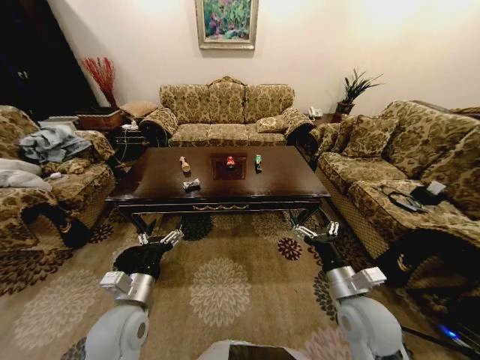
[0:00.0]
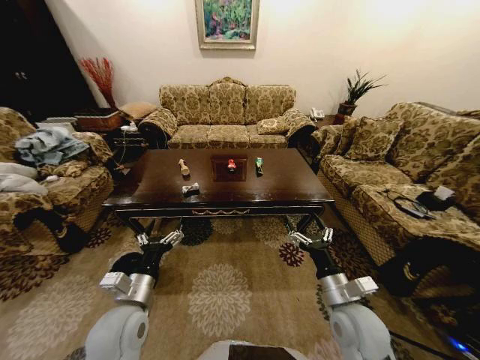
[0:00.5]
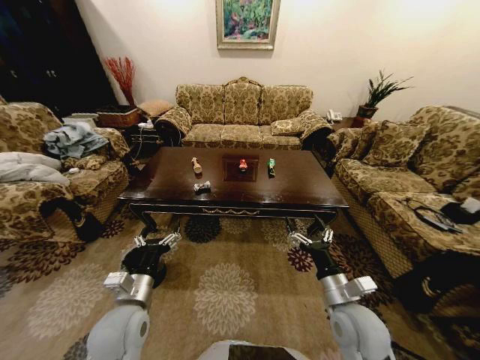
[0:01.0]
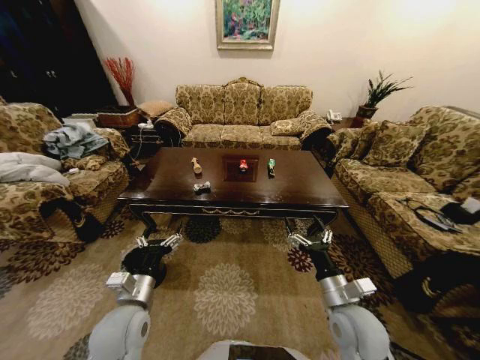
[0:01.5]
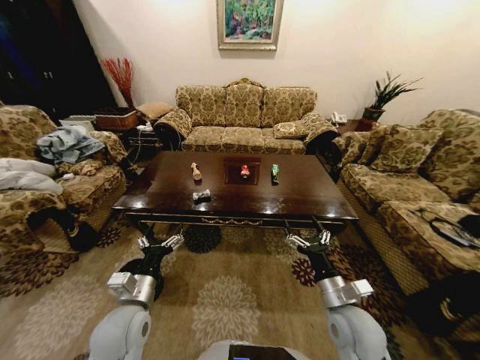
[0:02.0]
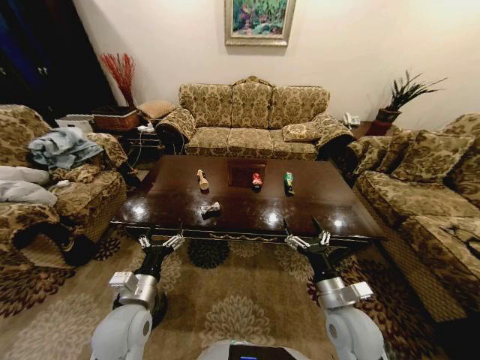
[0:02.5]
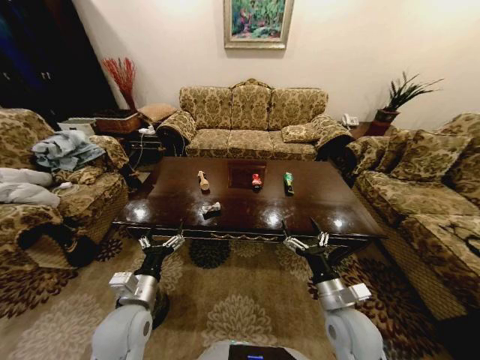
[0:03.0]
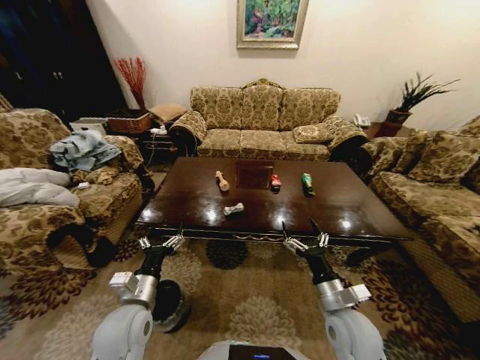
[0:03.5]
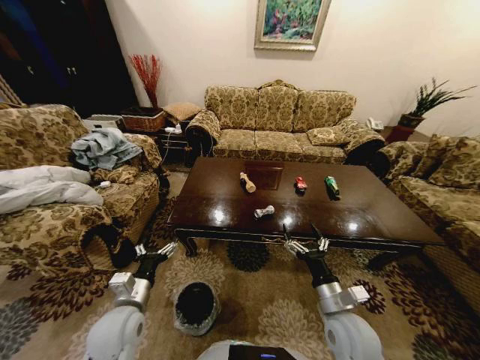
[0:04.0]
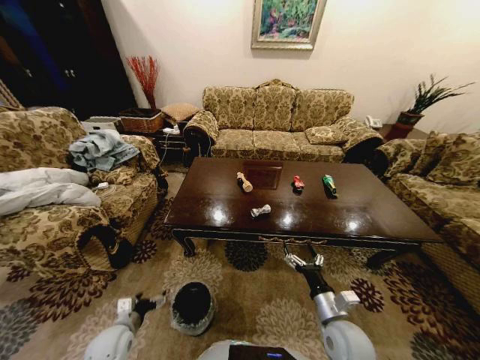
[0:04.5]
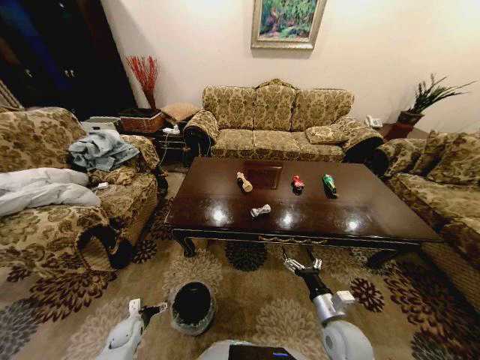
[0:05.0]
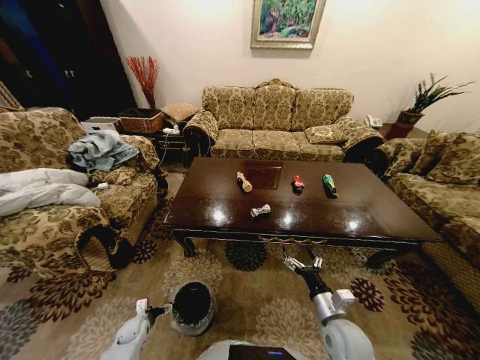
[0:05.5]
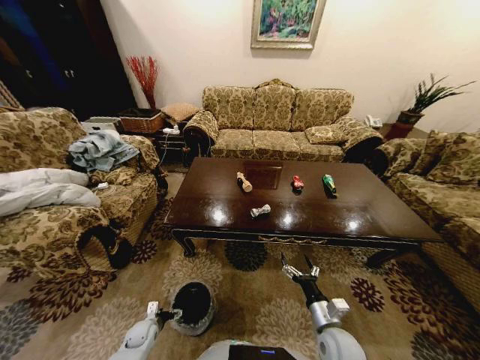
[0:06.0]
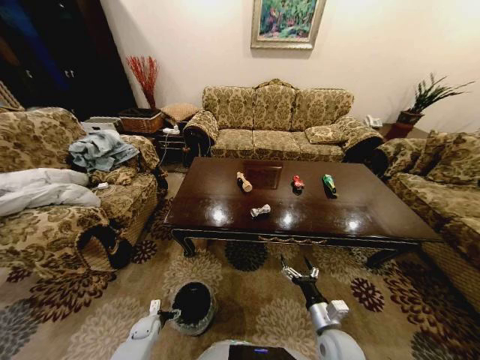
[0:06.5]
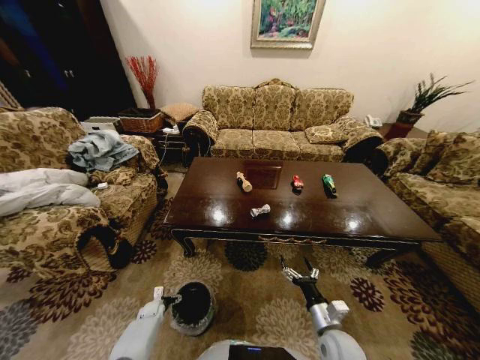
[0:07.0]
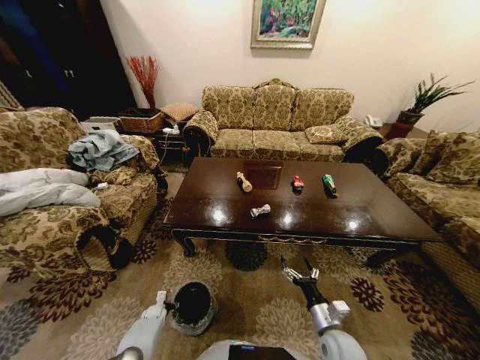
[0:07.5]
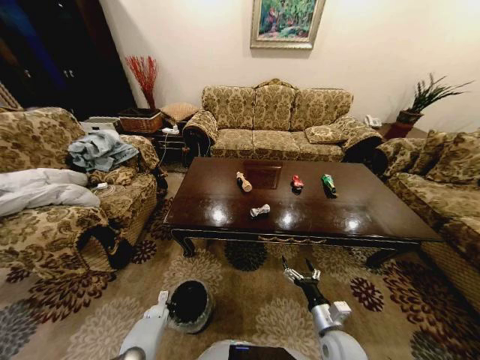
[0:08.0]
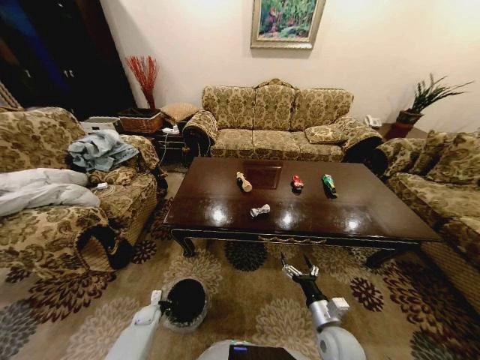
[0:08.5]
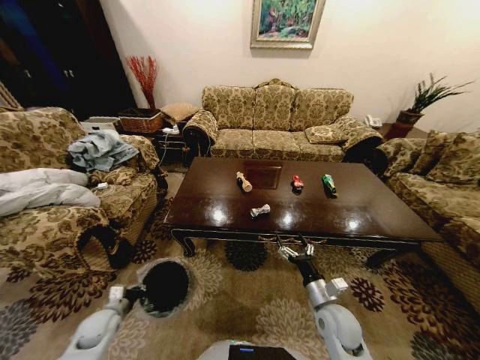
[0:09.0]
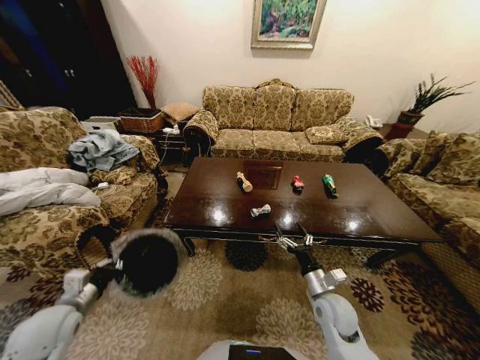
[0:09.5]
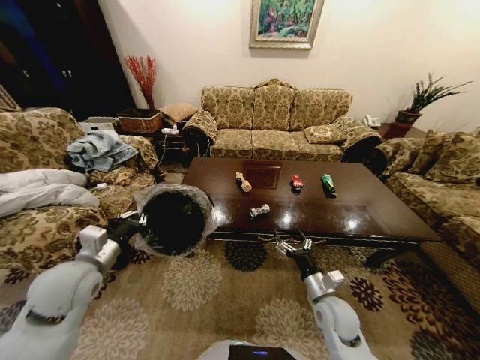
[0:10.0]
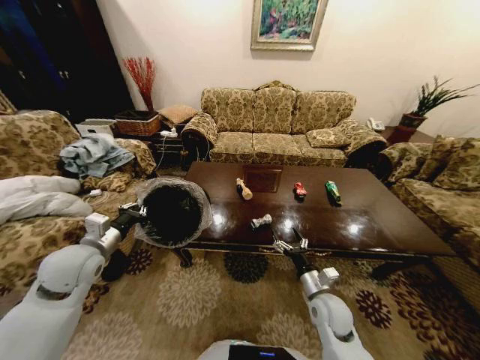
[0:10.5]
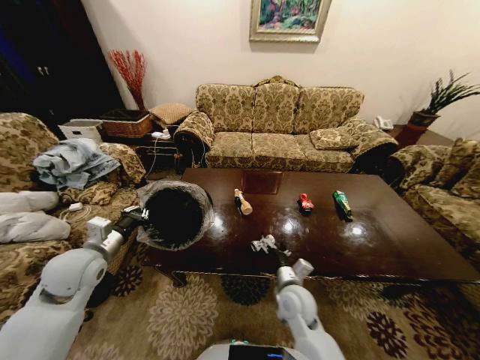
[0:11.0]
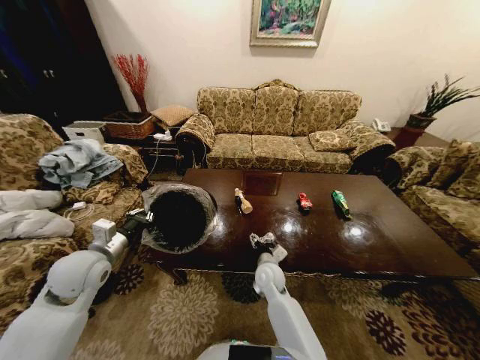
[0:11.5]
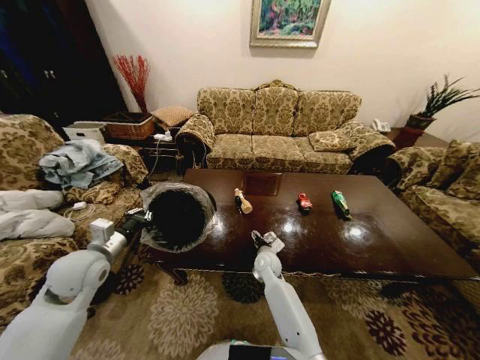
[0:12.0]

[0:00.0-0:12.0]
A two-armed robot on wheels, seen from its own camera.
Task of the whole recording: Move to the front of the table and place the trash on the table into the trash bin.
0:04.0 to 0:06.0: The left gripper travels downward by roughly 30 cm. Meanwhile the right gripper is displaced downward by approximately 10 cm.
0:06.0 to 0:08.0: The left gripper moves downward and forward, roughly 10 cm, and closes.
0:08.0 to 0:10.0: The left gripper moves upward, approximately 50 cm. Meanwhile the right gripper travels forward and upward by approximately 10 cm.
0:10.0 to 0:12.0: The right gripper shifts some 20 cm forward and to the left.

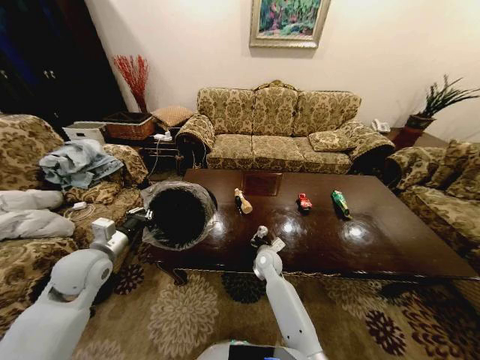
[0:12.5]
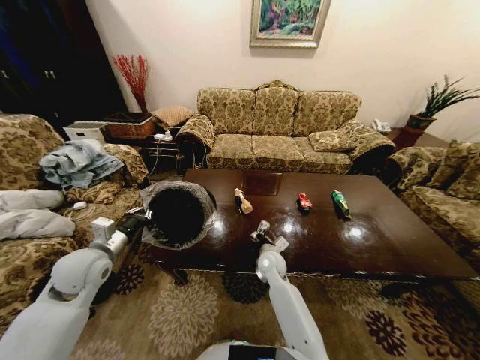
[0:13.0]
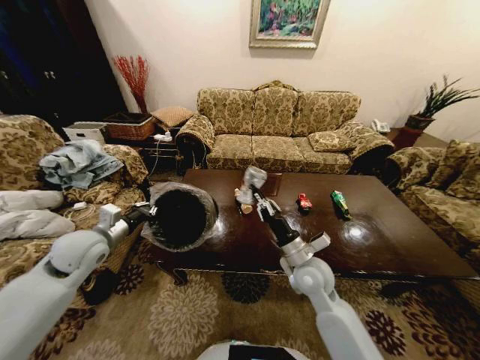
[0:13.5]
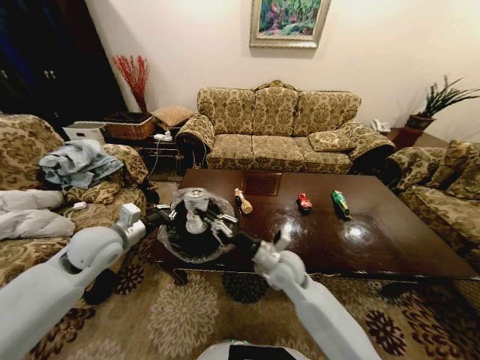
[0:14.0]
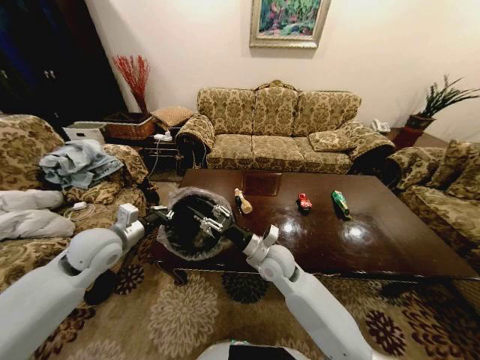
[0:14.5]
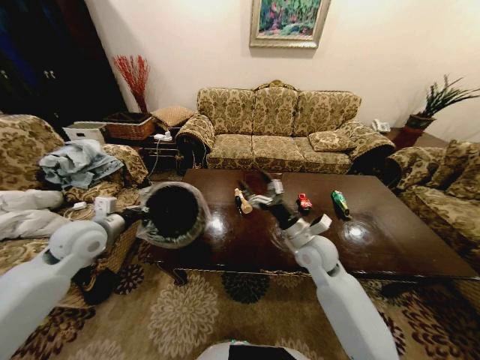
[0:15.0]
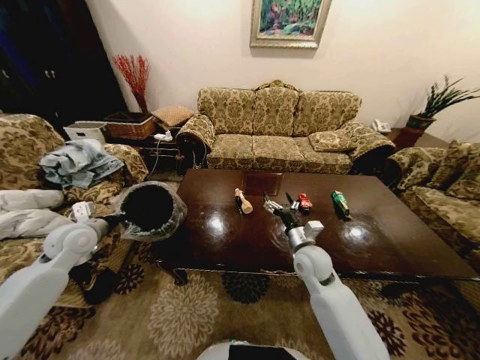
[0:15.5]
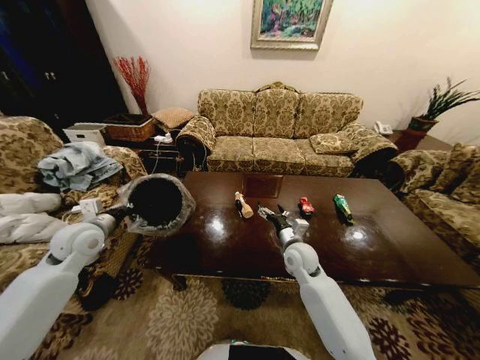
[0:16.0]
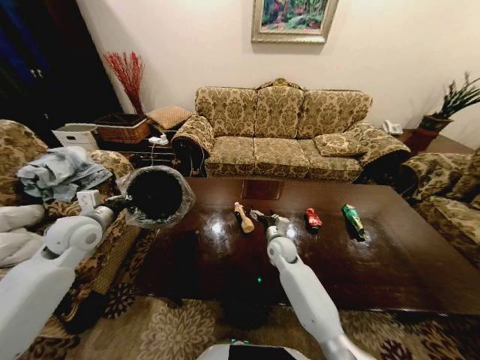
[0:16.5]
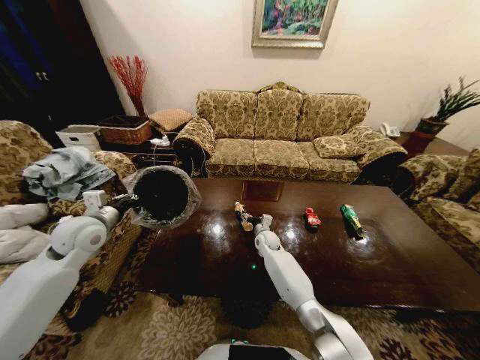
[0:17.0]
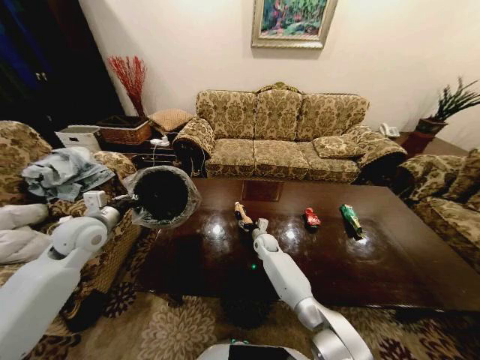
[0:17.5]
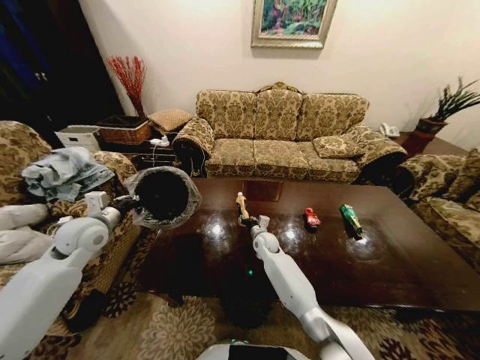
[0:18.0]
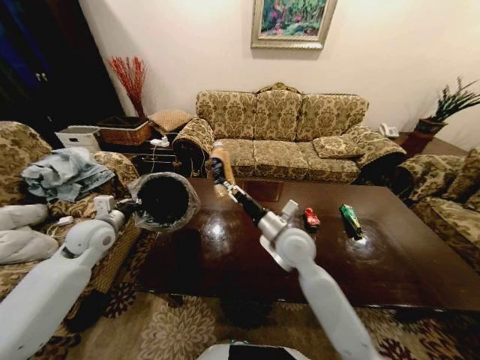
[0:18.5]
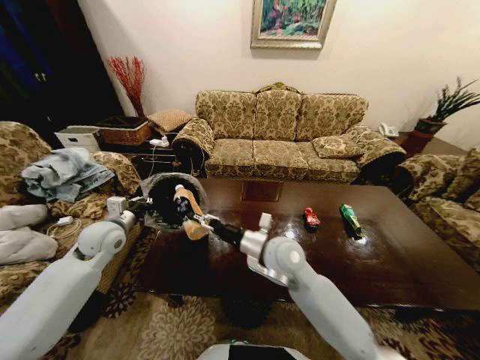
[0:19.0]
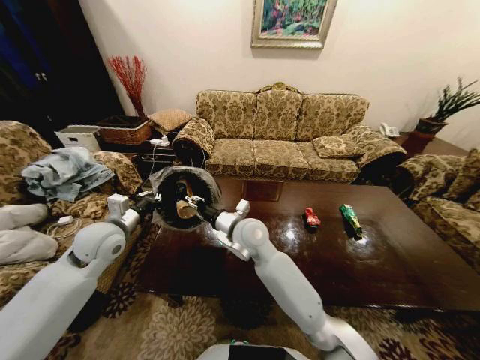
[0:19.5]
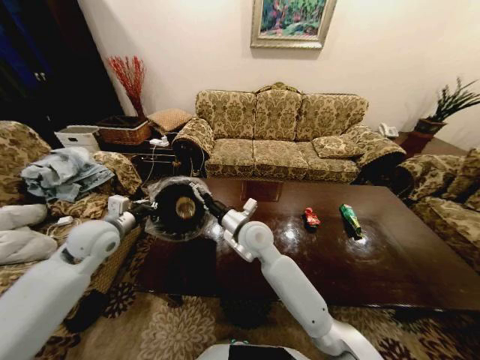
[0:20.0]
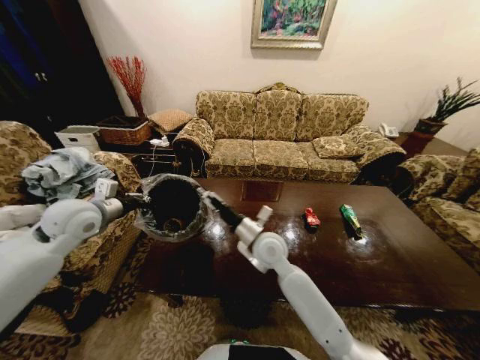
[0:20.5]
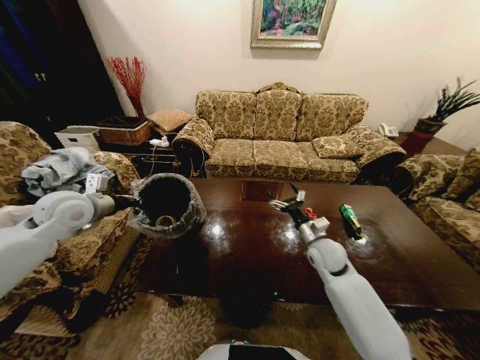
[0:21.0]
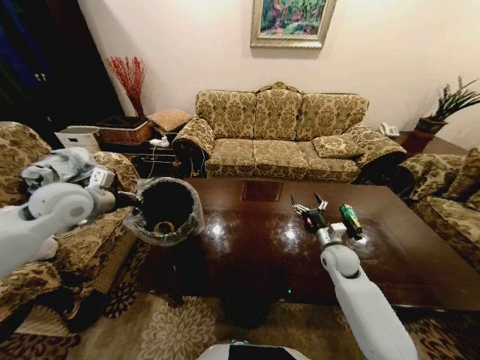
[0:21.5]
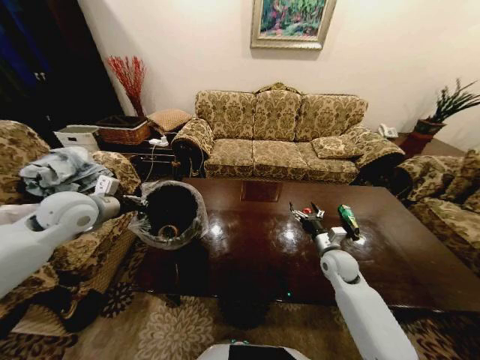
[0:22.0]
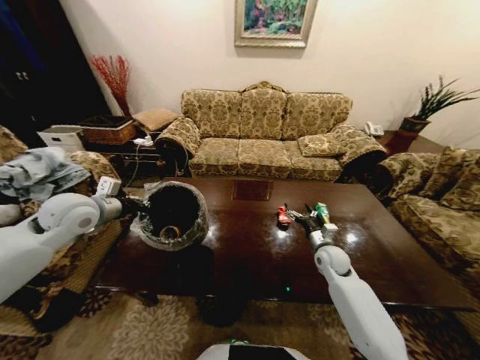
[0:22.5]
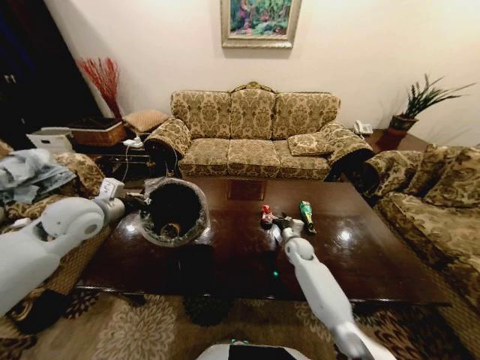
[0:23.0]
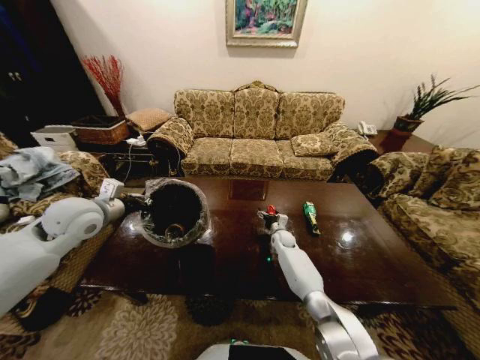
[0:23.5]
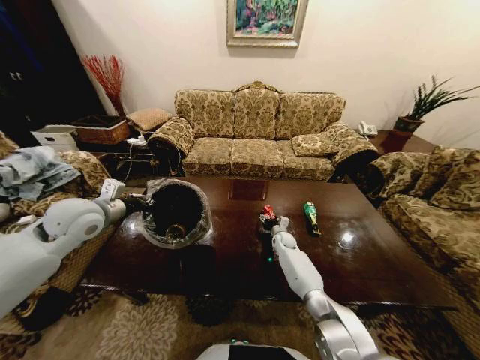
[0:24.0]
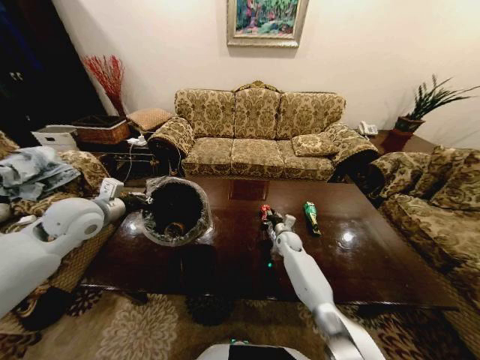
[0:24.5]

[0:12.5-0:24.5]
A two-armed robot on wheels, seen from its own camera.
Task of the whole recording: Move to the front of the table and place the trash on the table into the trash bin.
0:12.5 to 0:14.5: The right gripper is displaced upward and backward by roughly 15 cm, and closes, then reopens. The left gripper moves about 5 cm.
0:14.5 to 0:16.5: The left gripper heads to the left, covering approximately 5 cm; the right gripper goes about 15 cm downward, forward and to the right, and opens its fingers.
0:16.5 to 0:18.5: The right gripper shifts approximately 20 cm upward and backward, and closes.
0:18.5 to 0:20.5: The left gripper travels upward by some 10 cm. The right gripper shifts approximately 5 cm to the left, and opens its fingers.
0:20.5 to 0:22.5: The right gripper is displaced to the right and downward by some 25 cm.
0:22.5 to 0:24.5: The right gripper goes approximately 20 cm forward, to the left and downward, and closes its fingers.

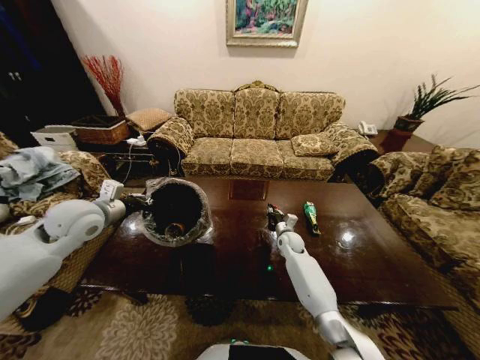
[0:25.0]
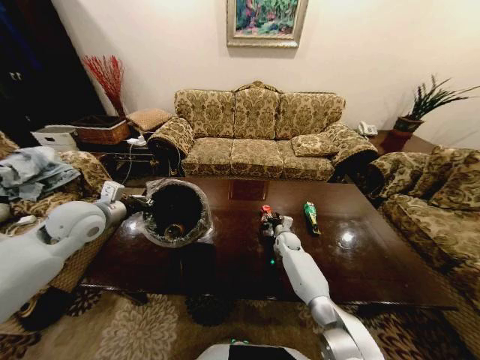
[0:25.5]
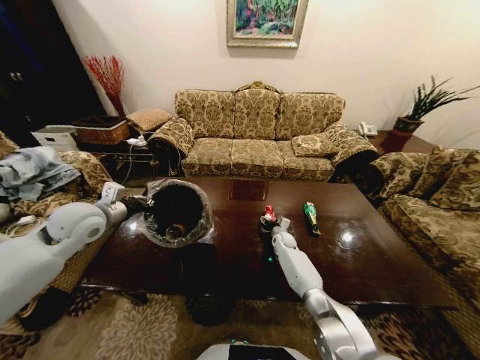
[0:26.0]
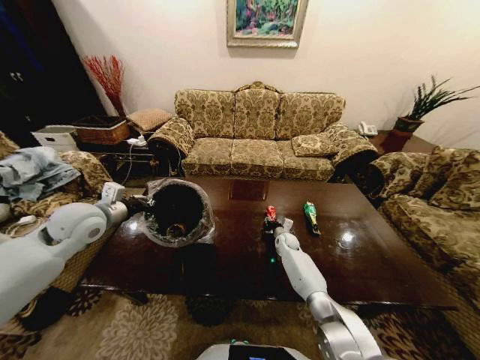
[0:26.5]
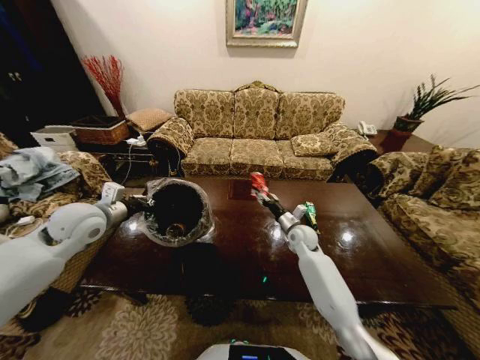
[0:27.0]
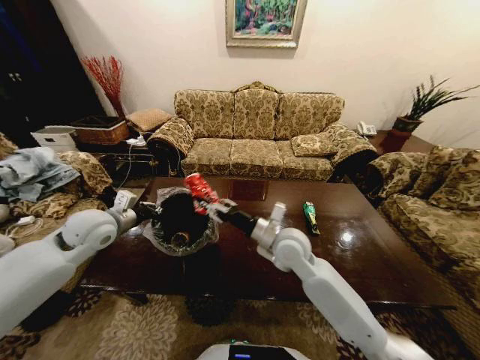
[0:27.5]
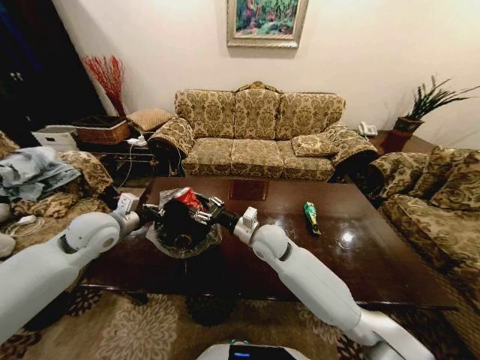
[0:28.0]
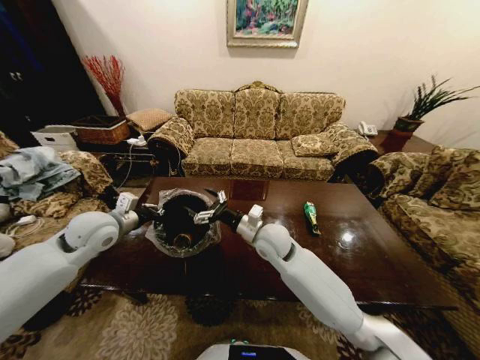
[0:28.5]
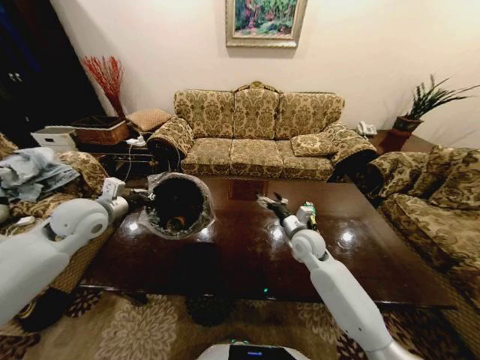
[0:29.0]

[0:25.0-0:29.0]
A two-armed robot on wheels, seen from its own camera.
Task of the whole recording: Move to the front of the table and place the trash on the table into the trash bin.
0:25.0 to 0:27.0: The right gripper is displaced upward by some 10 cm, and opens, then closes once more.
0:27.0 to 0:29.0: The right gripper moves approximately 15 cm to the left and comes back, and opens.
